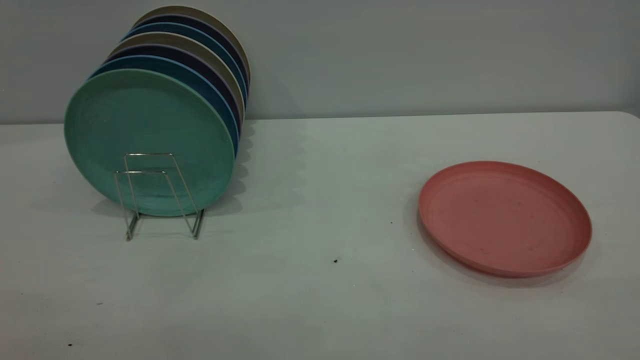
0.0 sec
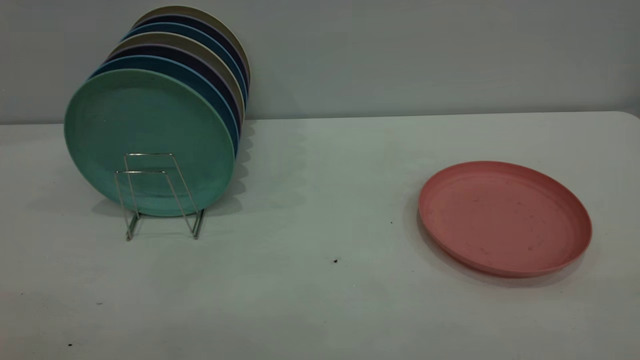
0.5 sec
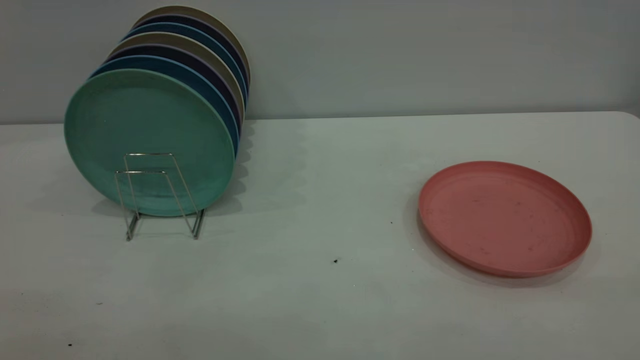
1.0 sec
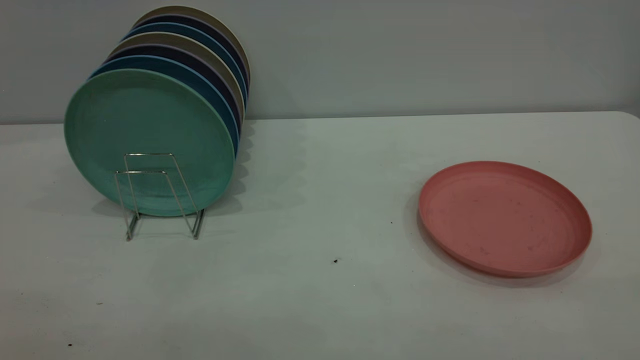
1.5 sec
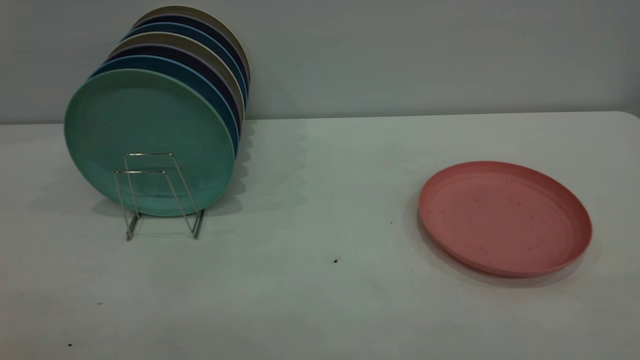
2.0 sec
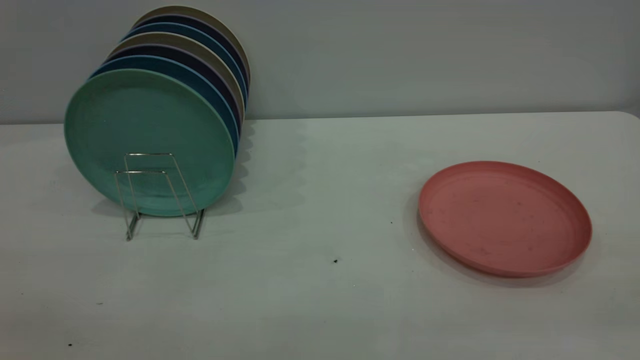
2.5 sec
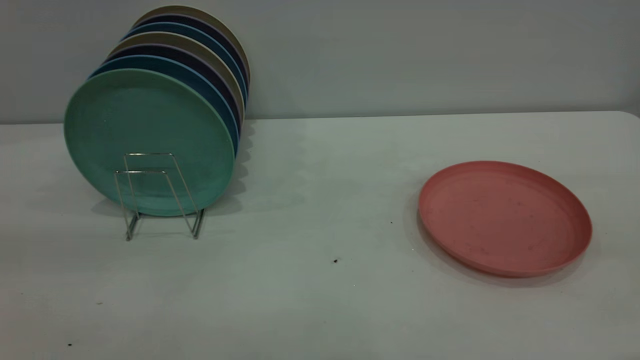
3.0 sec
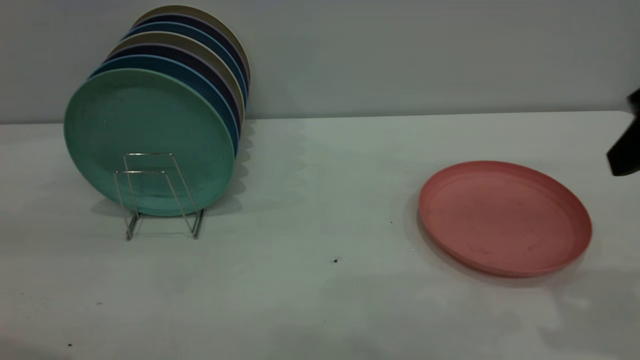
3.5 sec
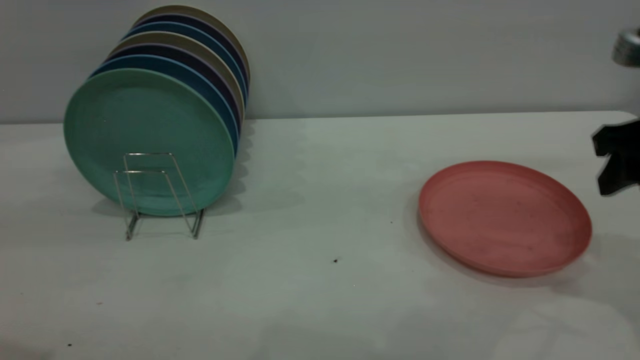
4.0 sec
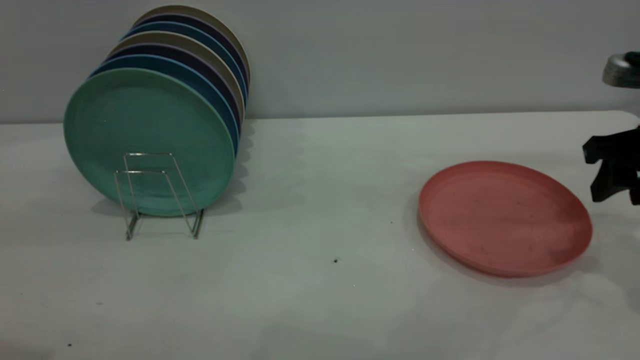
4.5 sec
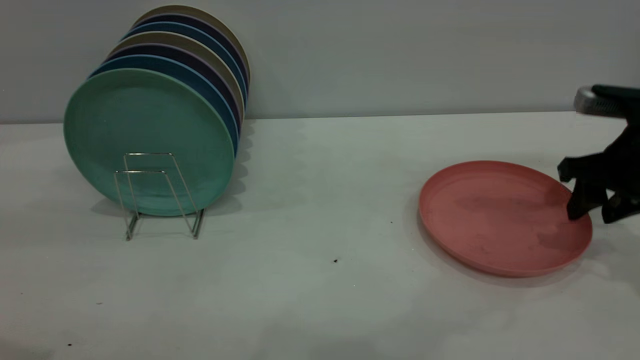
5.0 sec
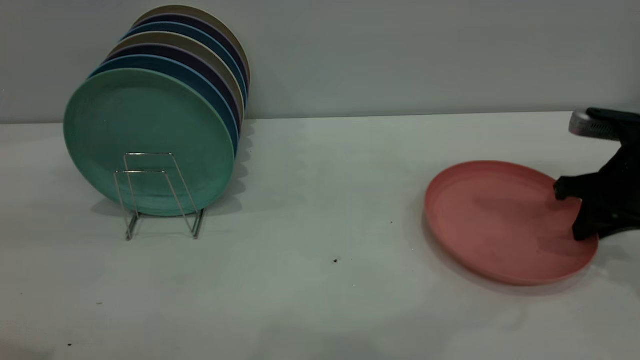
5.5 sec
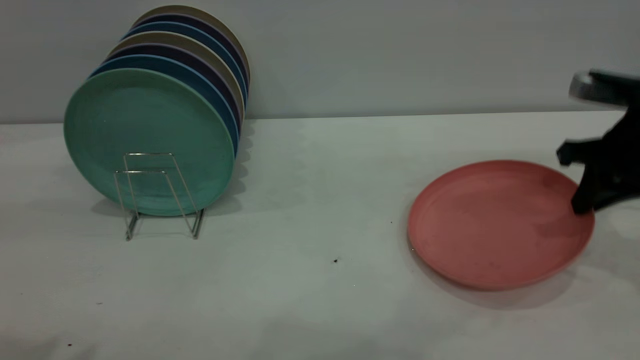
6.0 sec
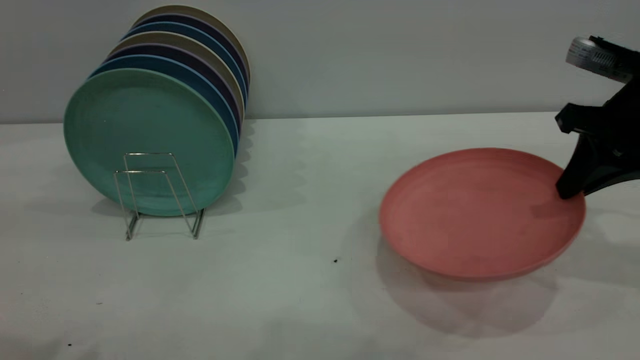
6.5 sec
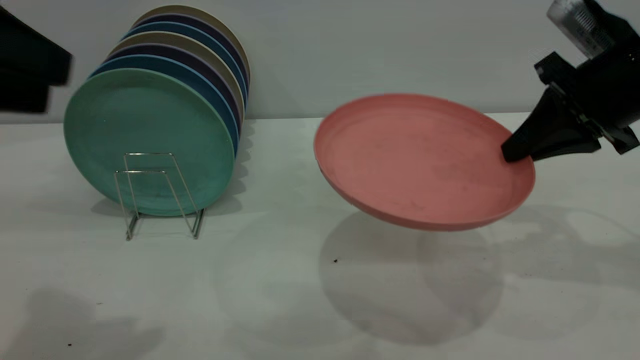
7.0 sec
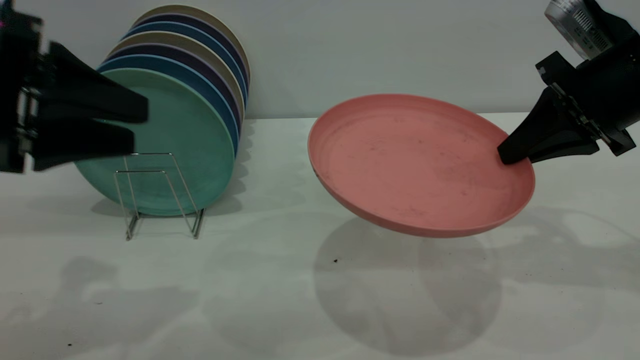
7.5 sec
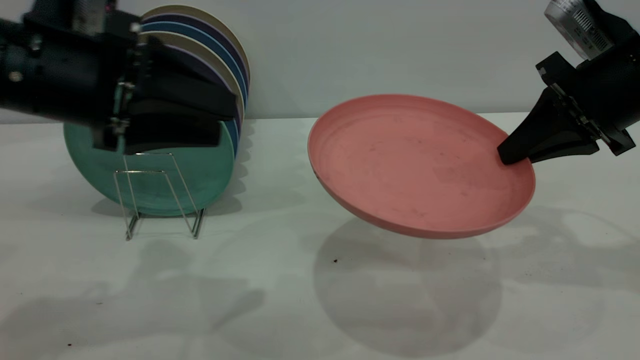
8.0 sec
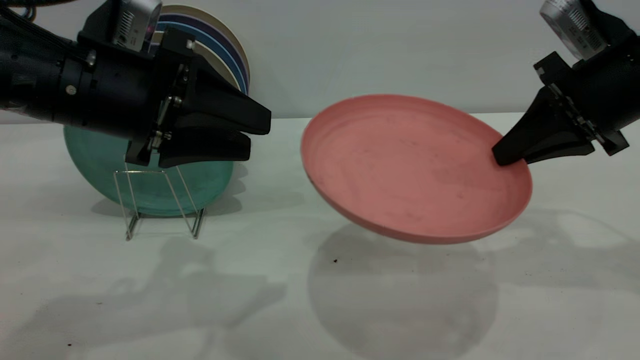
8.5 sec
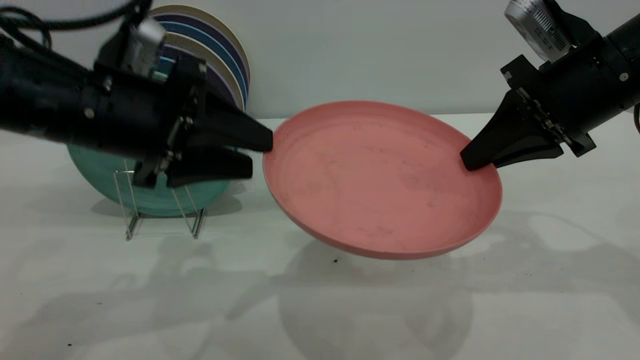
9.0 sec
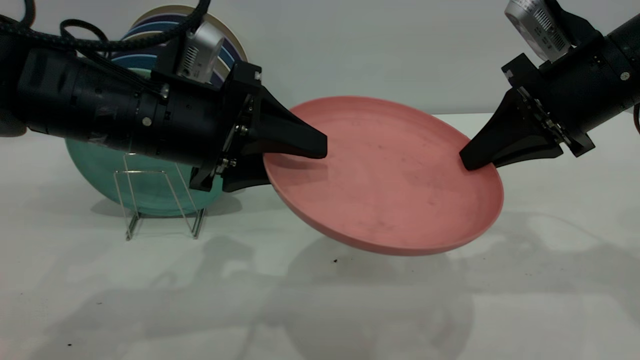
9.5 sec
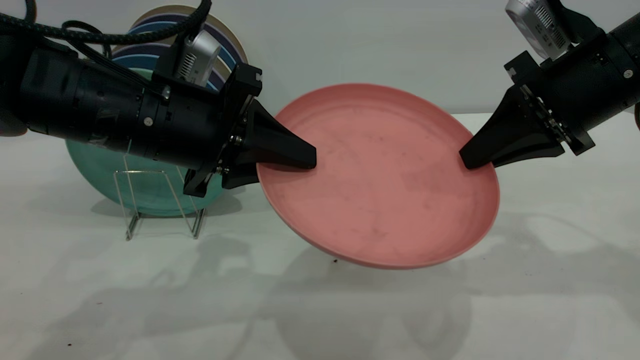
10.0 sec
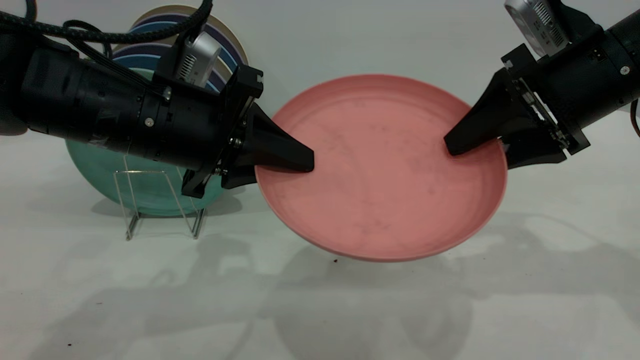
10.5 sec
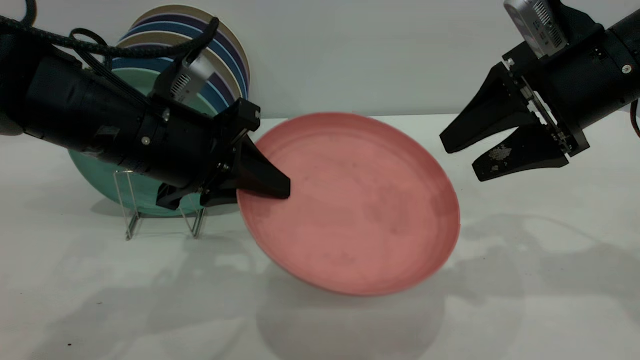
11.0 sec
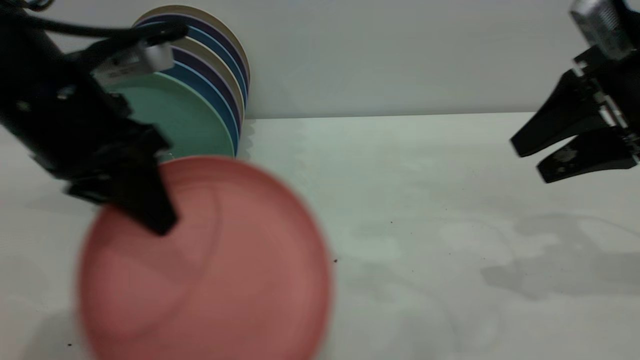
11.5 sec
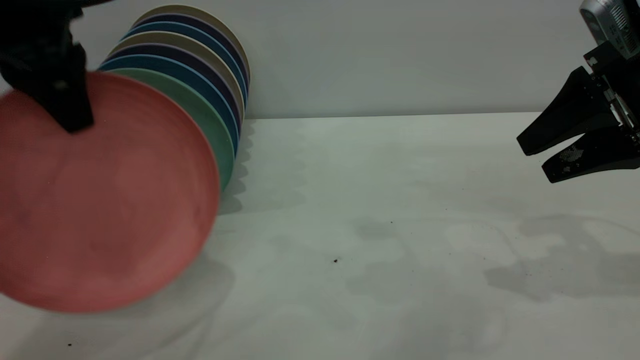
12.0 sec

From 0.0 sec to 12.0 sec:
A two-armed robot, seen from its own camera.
Task of the whole recording: the right gripper grasp the pink plate, the right gripper pass the pink plate to the left gripper, and the left gripper place the pink plate on the plate rack.
Step, from 0.0 sec to 6.0 sec: Pick up the plate with the right gripper.
Step, from 6.5 sec to 10.5 sec: Pass the plate from the right gripper to the left gripper.
From 0.0 sec to 2.0 sec: Neither gripper changes place.
From 2.0 sec to 4.0 sec: The right gripper travels forward and downward by roughly 35 cm.
From 4.0 sec to 6.0 sec: The right gripper is displaced forward by some 5 cm, and closes its fingers.
From 6.0 sec to 8.0 sec: The right gripper heads upward, covering about 5 cm. Meanwhile the left gripper moves downward, forward and to the right, approximately 20 cm.
From 8.0 sec to 10.0 sec: The left gripper heads to the right, covering some 5 cm, and closes.
From 10.0 sec to 12.0 sec: The right gripper heads to the right, covering approximately 5 cm, and opens its fingers, while the left gripper travels upward and to the left by approximately 15 cm.

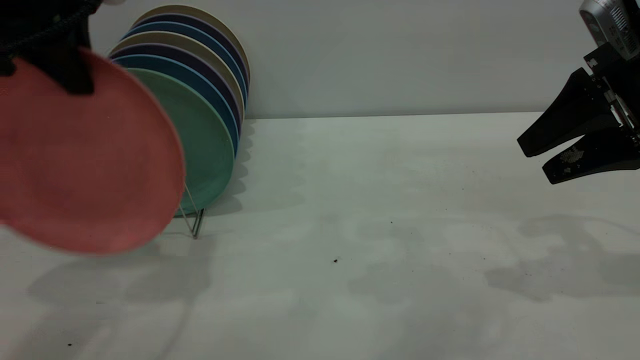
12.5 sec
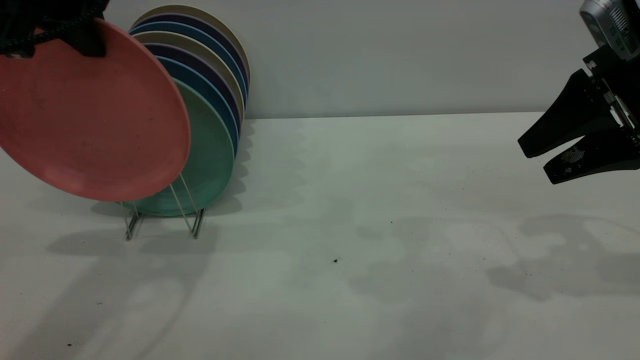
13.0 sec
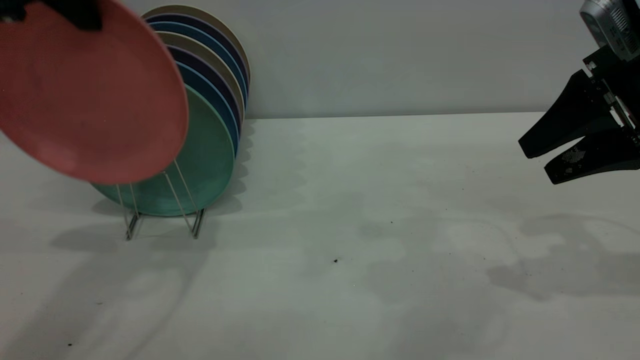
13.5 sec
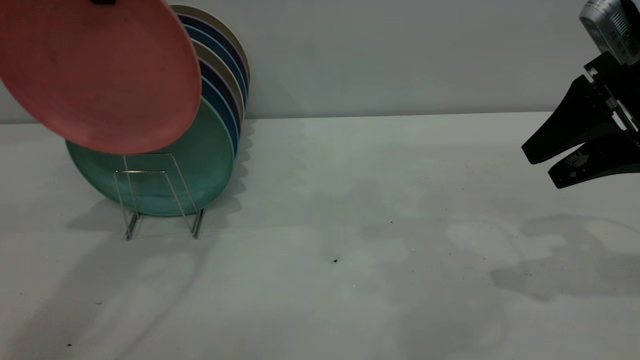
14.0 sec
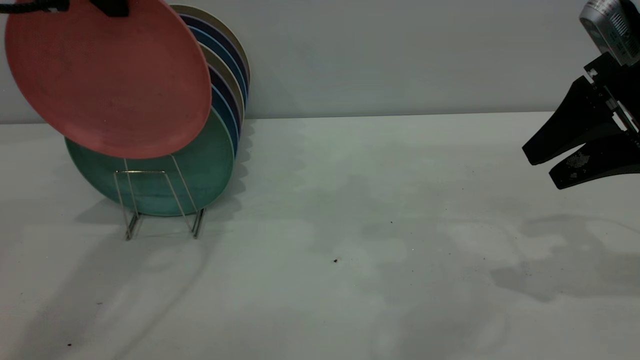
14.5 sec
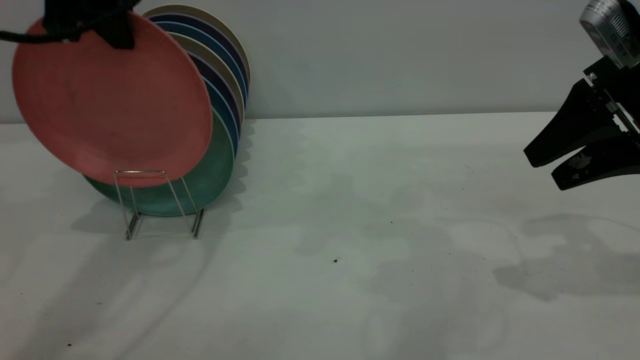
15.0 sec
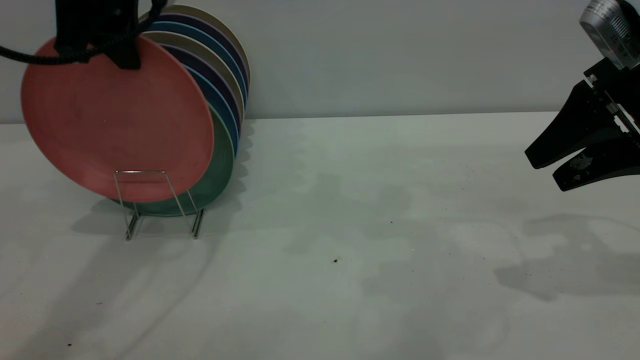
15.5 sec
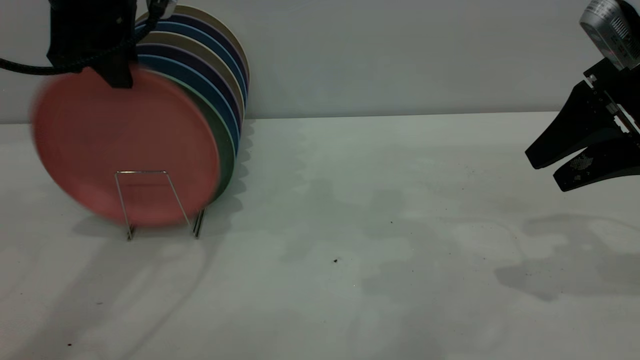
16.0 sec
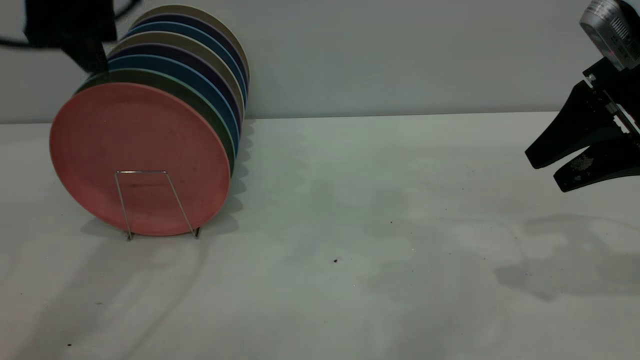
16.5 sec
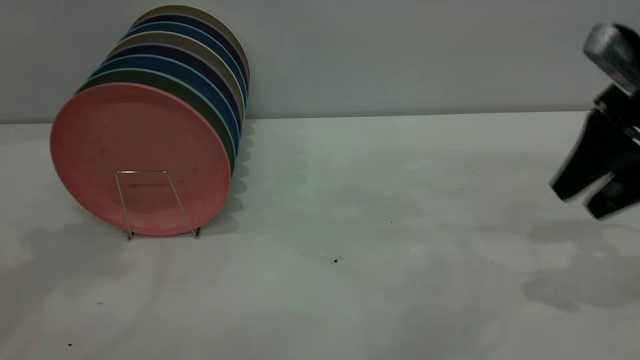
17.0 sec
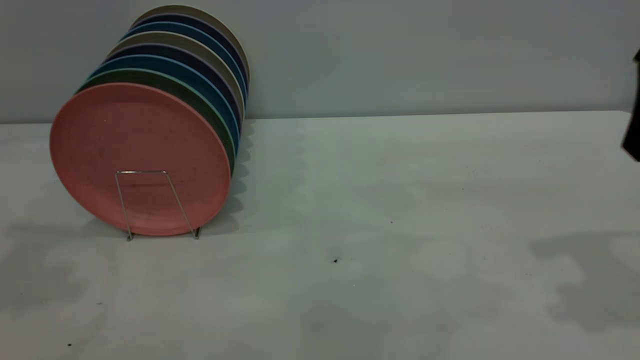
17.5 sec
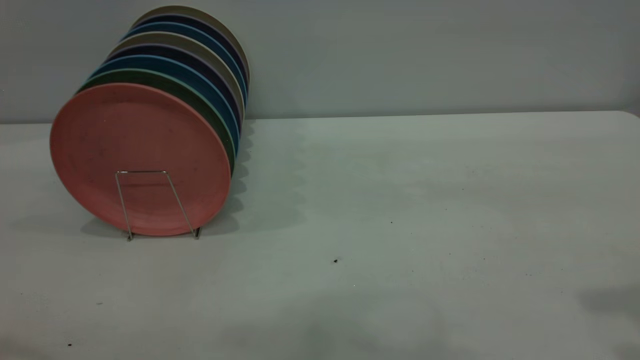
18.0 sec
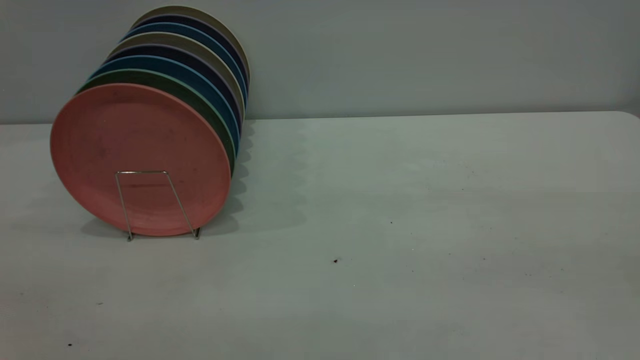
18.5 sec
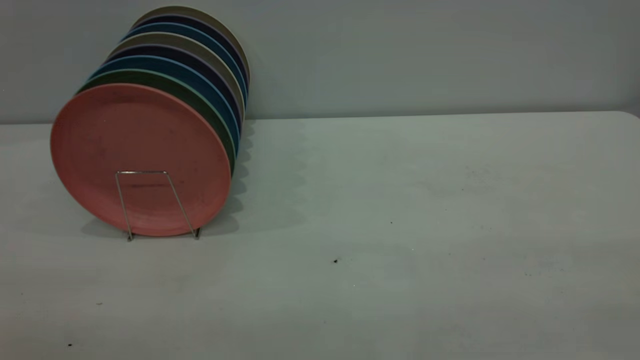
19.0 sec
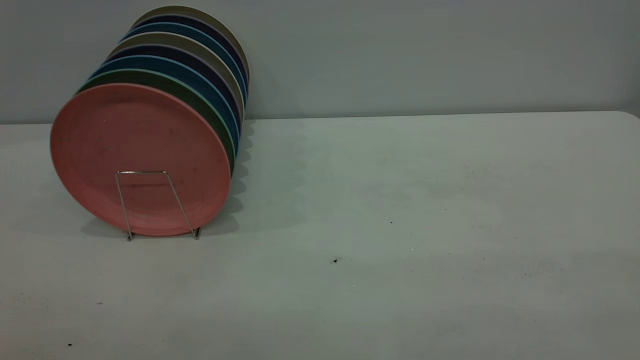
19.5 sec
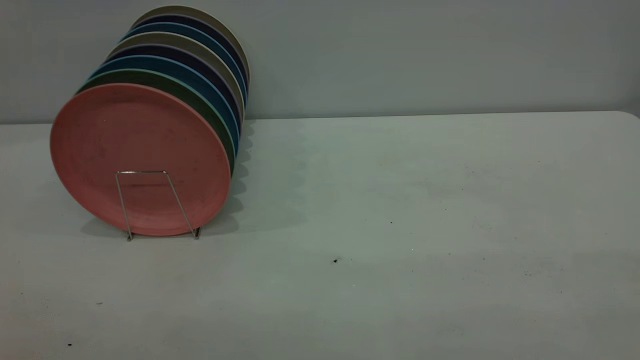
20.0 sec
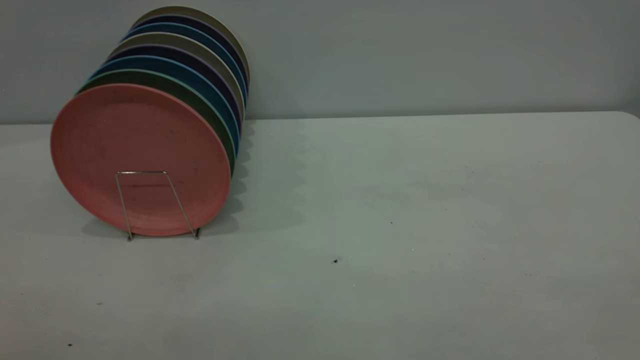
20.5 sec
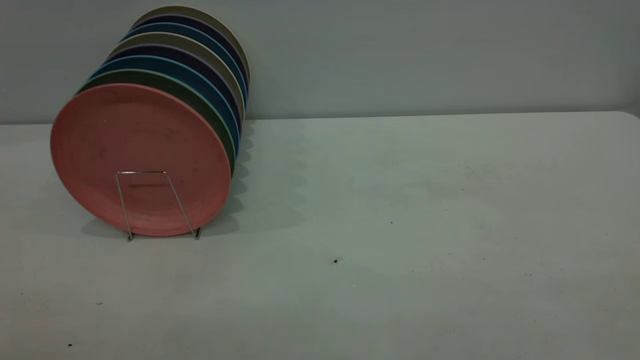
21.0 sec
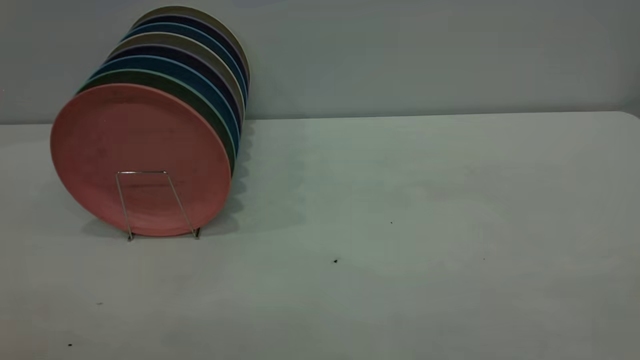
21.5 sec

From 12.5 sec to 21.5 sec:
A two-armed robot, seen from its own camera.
Task of the whole recording: the right gripper grasp the pink plate, the right gripper pass the pink plate to the left gripper, and the left gripper place the pink plate on the plate rack.
Step, from 12.5 sec to 16.5 sec: Place the plate on the shelf.
From 12.5 sec to 14.5 sec: The left gripper travels forward by about 5 cm.
From 14.5 sec to 17.0 sec: The left gripper is displaced upward, to the left and backward by about 10 cm, and opens.
From 17.0 sec to 19.5 sec: The right gripper travels backward and upward by some 35 cm.
